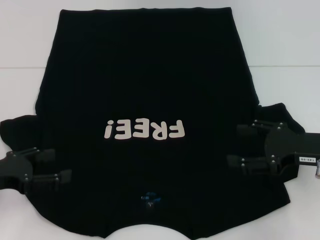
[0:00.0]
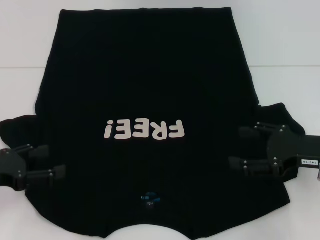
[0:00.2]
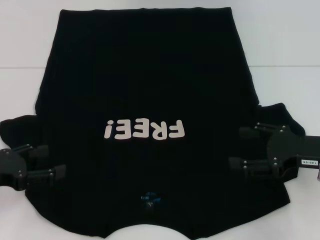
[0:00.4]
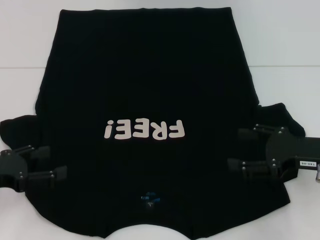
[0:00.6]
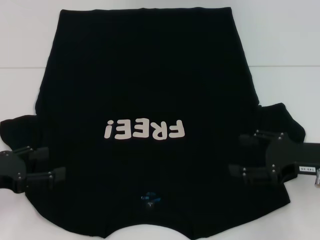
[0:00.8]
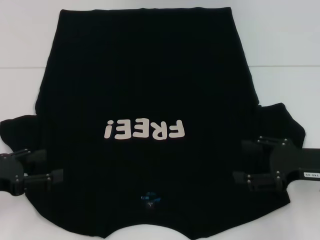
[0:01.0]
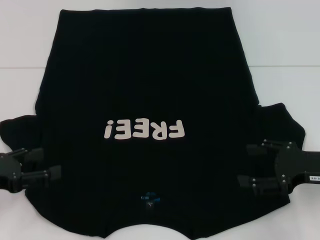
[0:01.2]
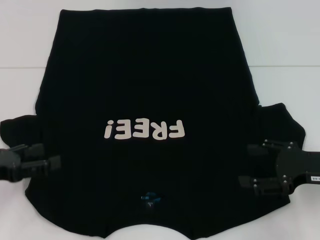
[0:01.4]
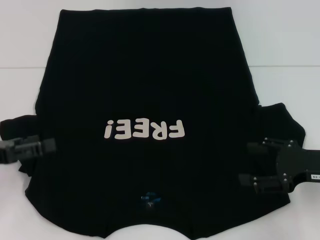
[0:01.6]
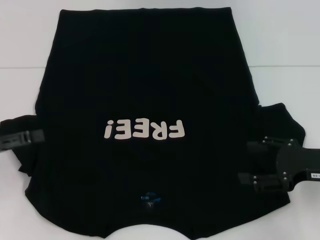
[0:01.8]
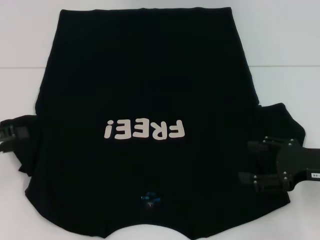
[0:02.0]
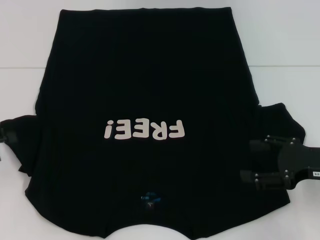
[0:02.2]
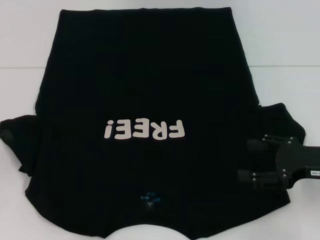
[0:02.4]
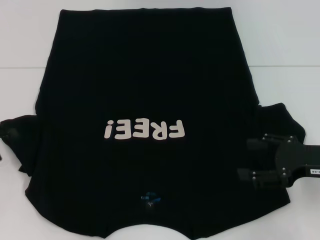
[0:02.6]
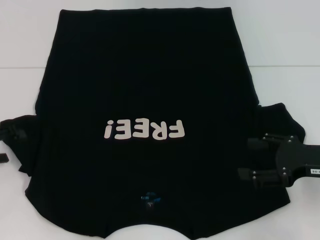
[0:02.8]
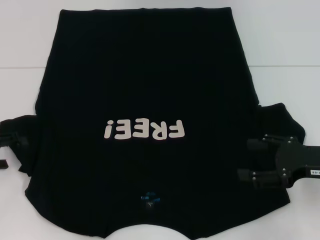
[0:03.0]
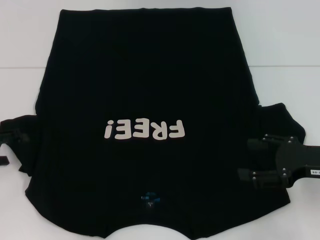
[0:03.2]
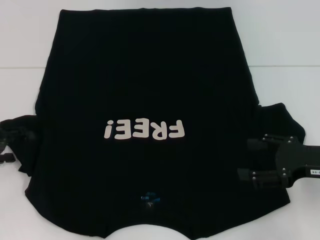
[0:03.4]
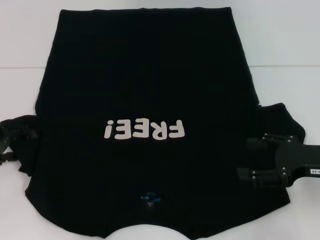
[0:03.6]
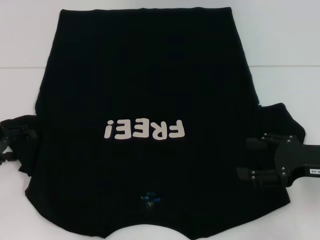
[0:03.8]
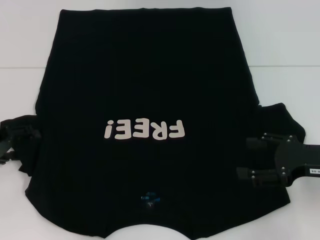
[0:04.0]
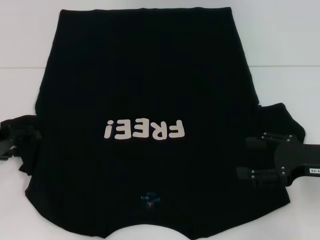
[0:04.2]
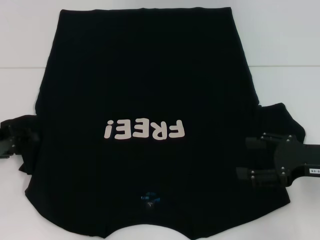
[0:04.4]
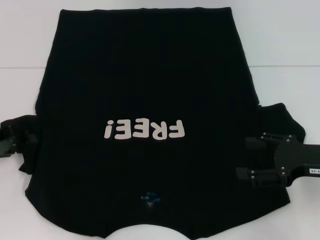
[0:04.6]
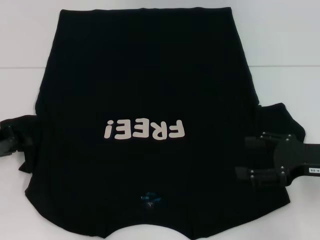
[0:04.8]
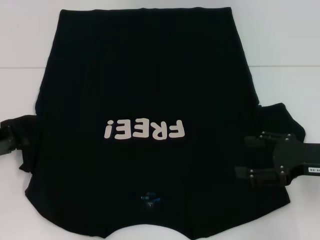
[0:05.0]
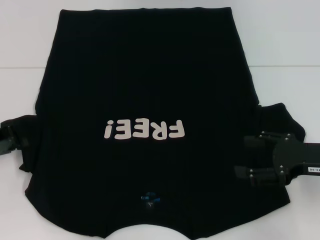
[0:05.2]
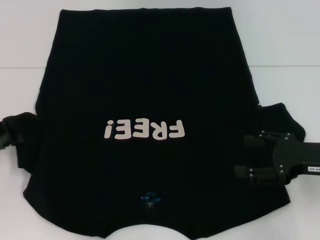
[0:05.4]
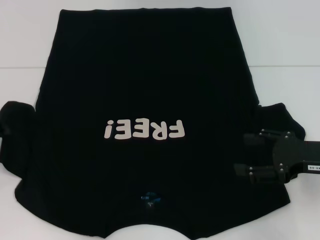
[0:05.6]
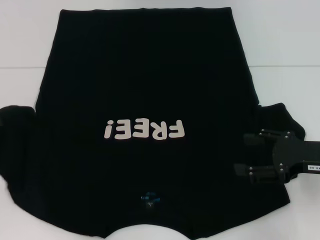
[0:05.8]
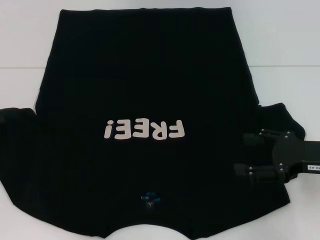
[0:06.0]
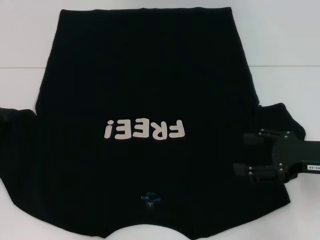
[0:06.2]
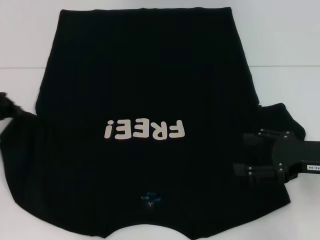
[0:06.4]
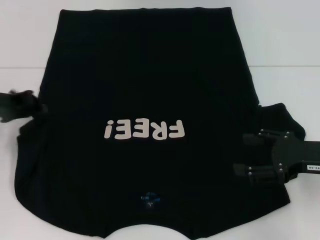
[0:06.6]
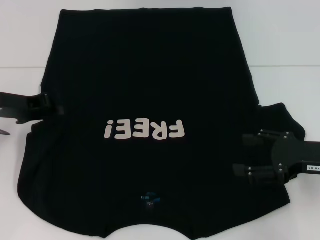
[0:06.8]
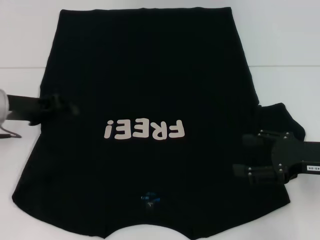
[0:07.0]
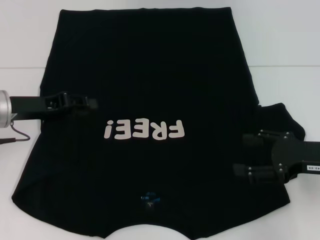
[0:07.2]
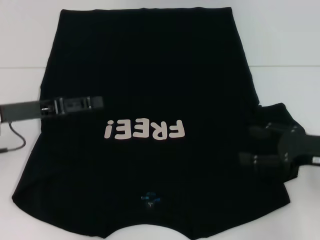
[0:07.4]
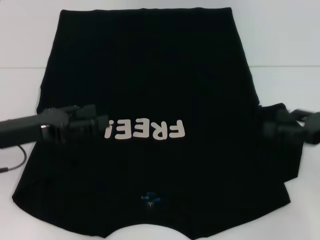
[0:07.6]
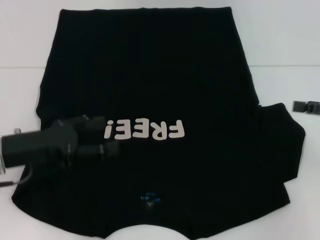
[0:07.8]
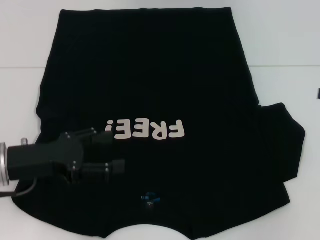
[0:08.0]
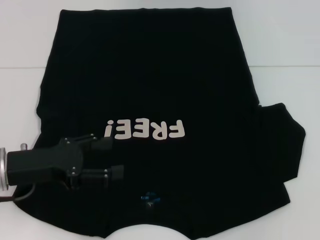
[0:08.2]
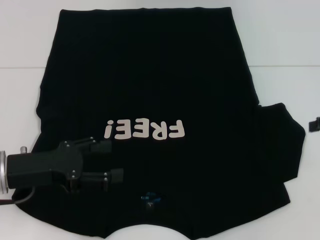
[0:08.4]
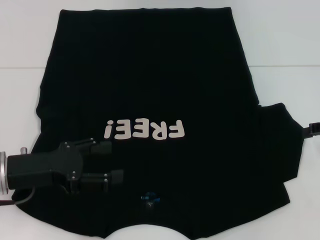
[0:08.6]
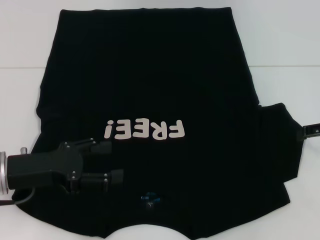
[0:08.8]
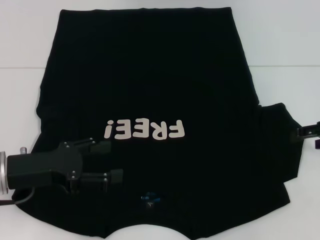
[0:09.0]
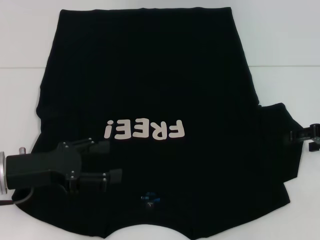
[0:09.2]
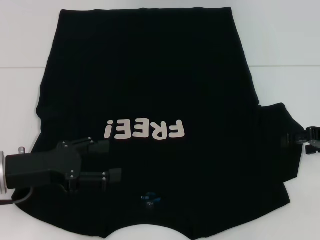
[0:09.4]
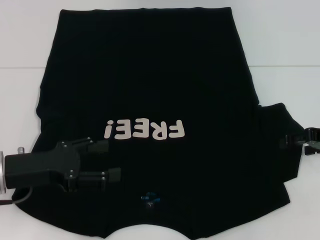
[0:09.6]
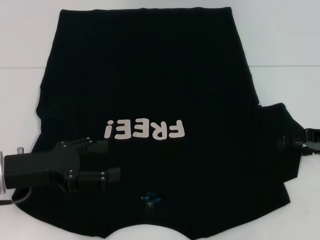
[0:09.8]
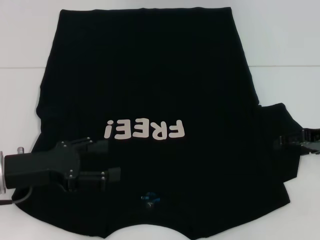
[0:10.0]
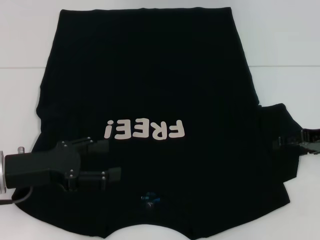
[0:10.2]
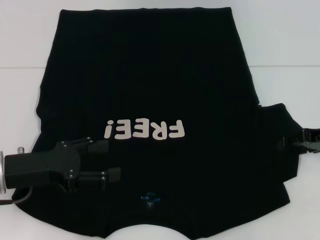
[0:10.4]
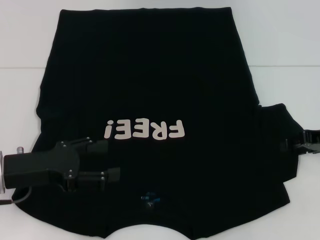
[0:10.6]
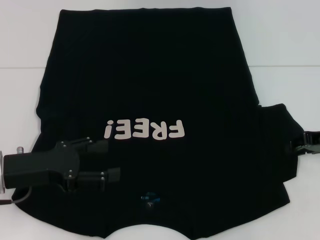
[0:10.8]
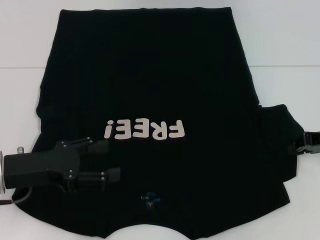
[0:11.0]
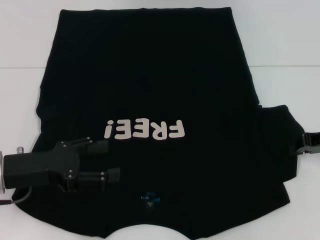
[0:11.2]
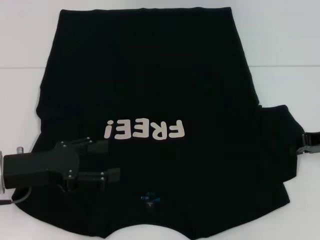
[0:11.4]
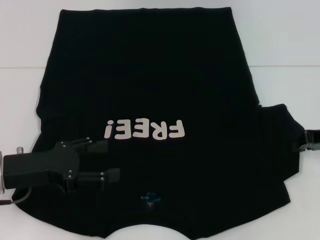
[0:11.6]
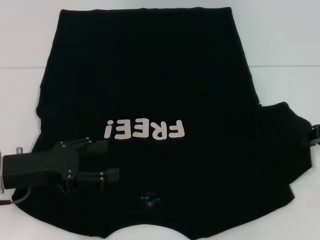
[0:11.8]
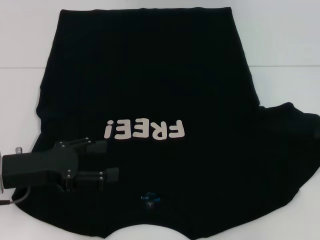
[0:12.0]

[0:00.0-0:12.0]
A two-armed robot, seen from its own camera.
Step, 0:00.0 to 0:07.0: Fold the bottom left sleeve with your left hand.
0:01.6 to 0:03.0: The left gripper changes place by about 5 cm.
0:03.0 to 0:04.4: The grippers move only a little.
0:04.4 to 0:06.0: The left gripper closes its fingers.
0:06.0 to 0:07.6: The left gripper heads to the right, covering some 10 cm, and opens its fingers.
0:07.6 to 0:09.0: The right gripper heads forward, covering roughly 5 cm.
0:09.0 to 0:10.4: The grippers make only small movements.
0:10.4 to 0:12.0: The right gripper closes.

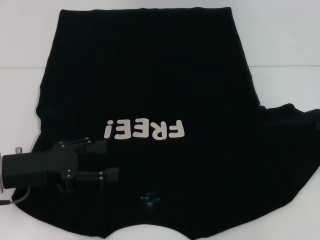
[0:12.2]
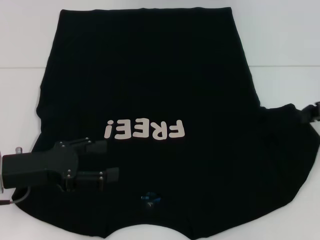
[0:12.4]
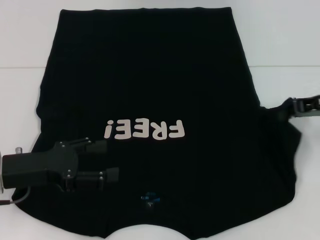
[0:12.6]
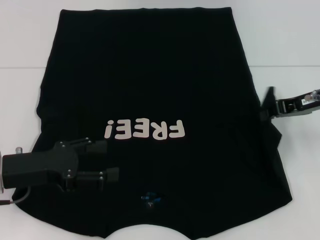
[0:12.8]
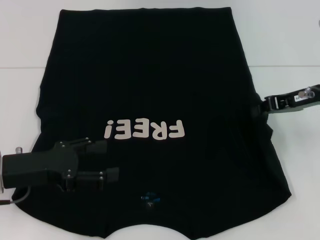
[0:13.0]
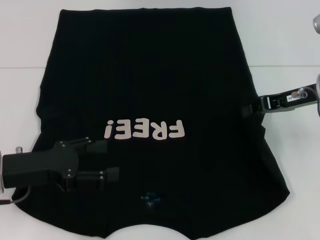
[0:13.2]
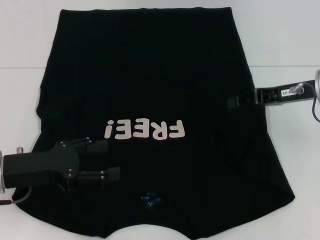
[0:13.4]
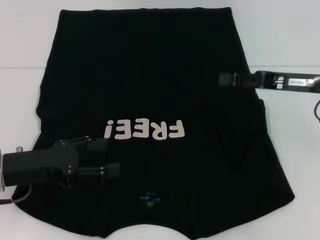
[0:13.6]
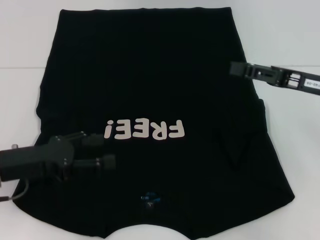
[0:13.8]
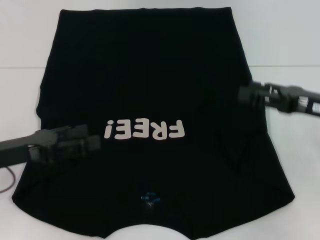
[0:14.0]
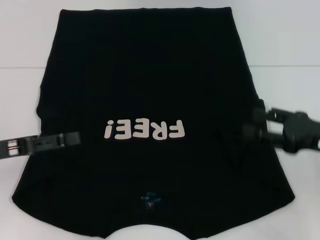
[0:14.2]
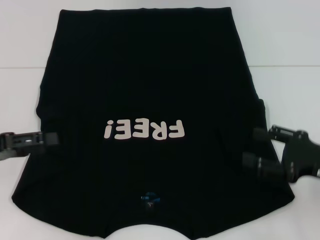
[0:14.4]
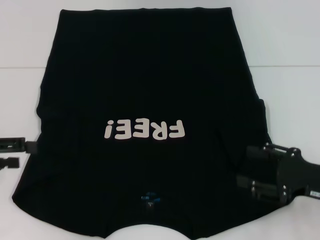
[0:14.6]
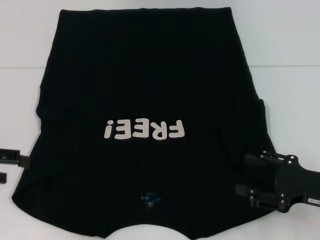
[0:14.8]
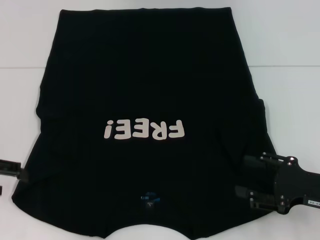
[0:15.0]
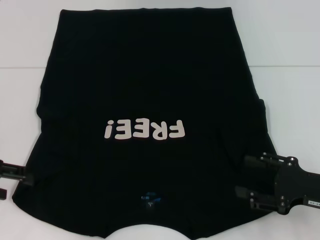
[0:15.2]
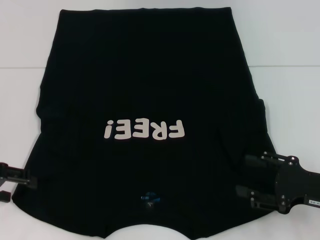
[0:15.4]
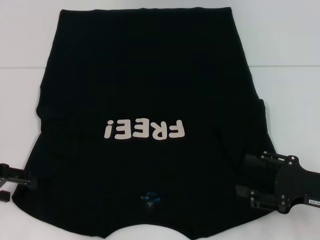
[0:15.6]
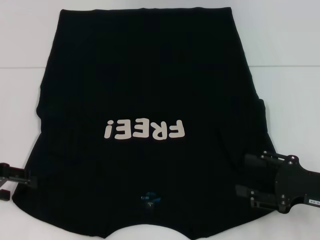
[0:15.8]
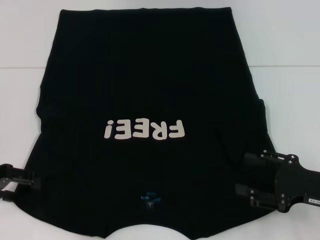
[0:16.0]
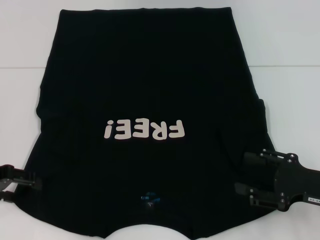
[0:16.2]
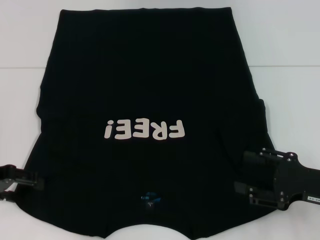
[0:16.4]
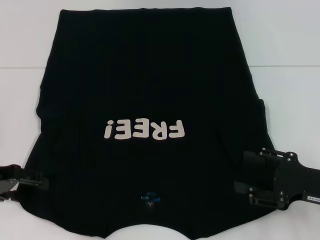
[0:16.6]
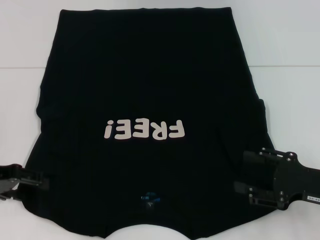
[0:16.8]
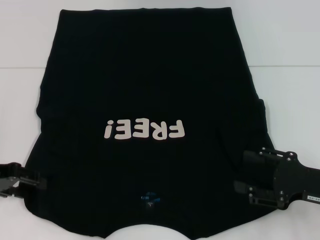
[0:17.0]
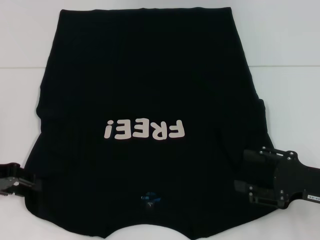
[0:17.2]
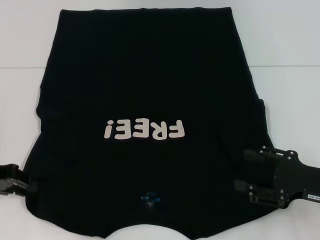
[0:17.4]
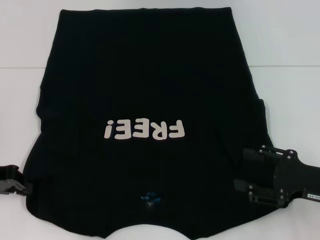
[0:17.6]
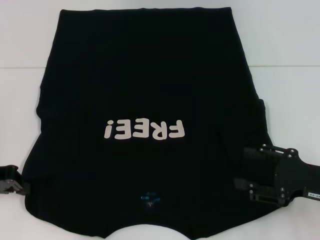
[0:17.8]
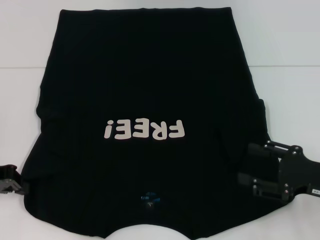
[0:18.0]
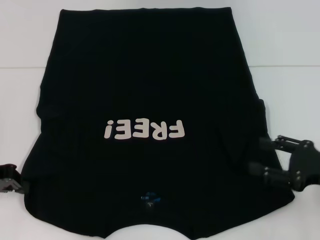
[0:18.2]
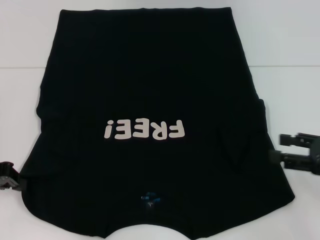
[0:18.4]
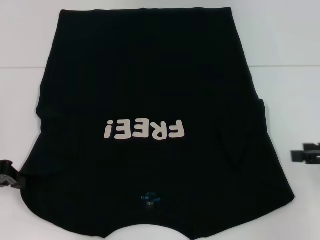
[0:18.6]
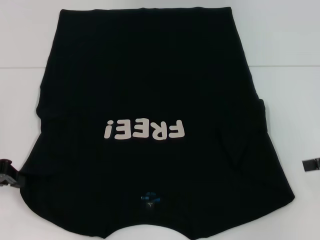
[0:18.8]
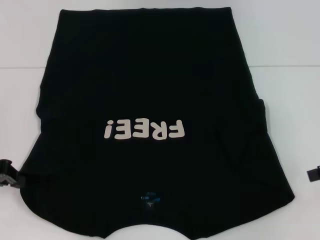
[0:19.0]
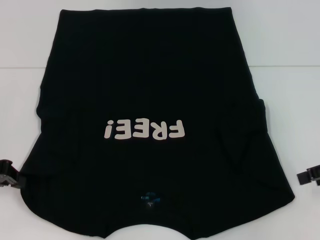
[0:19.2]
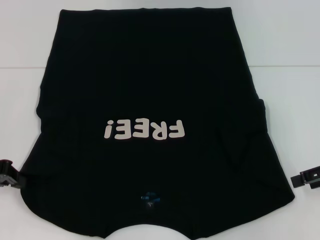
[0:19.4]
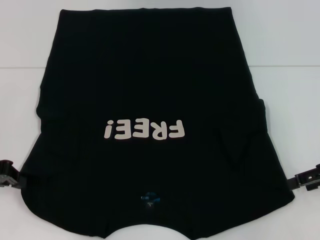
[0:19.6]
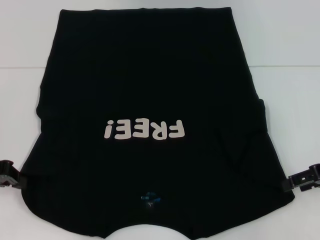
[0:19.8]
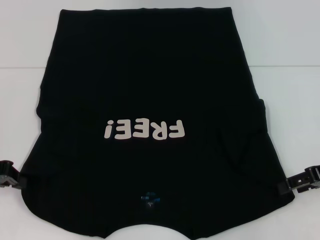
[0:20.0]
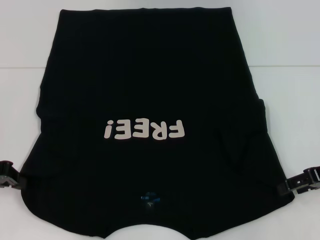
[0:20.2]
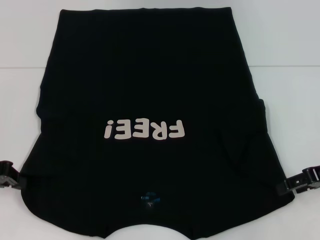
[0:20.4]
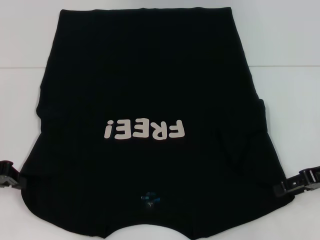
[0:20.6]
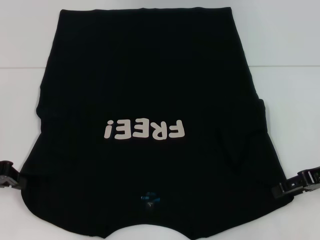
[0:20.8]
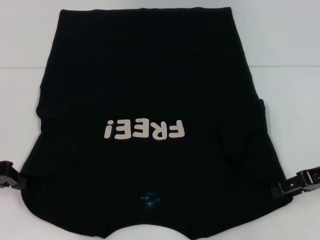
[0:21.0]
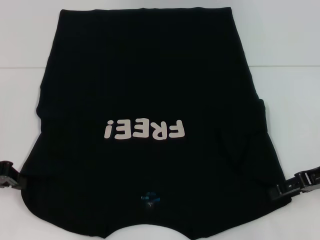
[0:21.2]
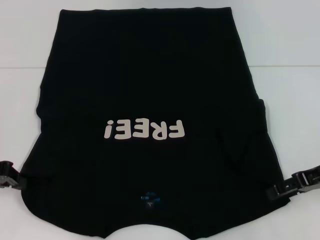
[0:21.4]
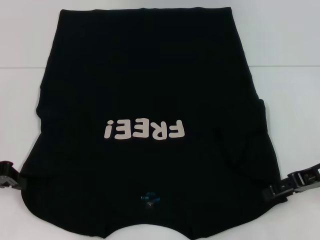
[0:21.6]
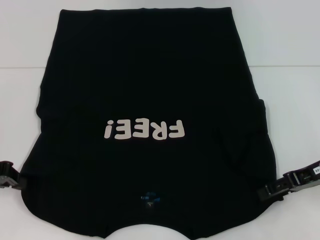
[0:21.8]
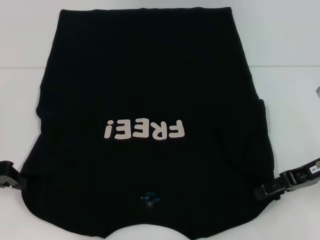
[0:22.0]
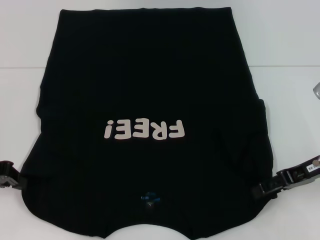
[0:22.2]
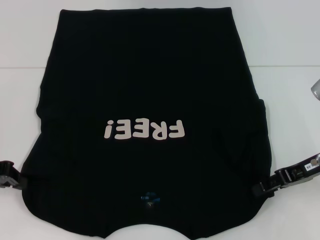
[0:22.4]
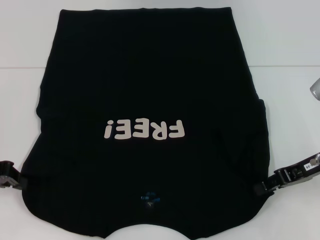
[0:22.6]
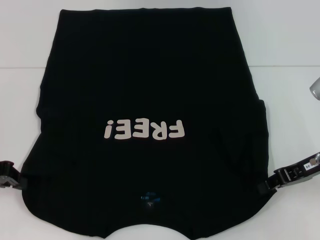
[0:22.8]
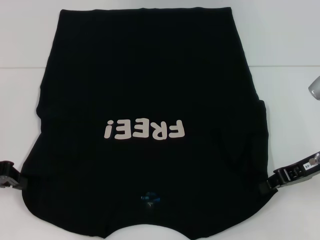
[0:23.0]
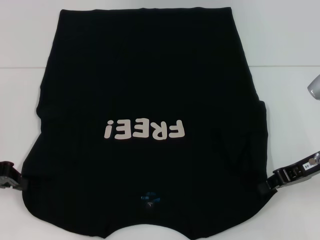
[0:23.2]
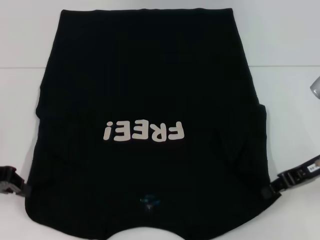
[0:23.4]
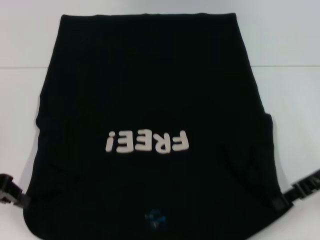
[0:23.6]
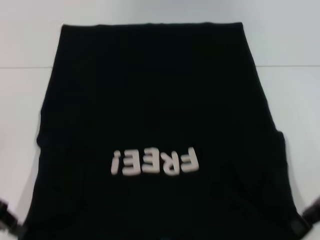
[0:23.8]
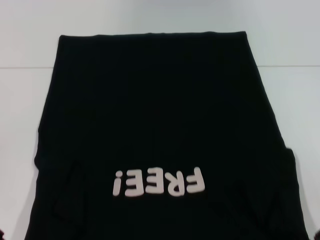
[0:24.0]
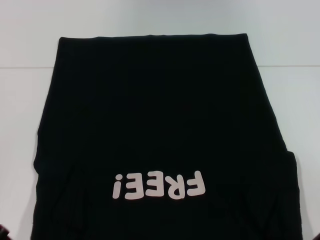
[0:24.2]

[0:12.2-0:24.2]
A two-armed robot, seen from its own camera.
Step, 0:13.6 to 0:18.0: Grab the bottom left corner with your left hand.
Step, 0:18.2 to 0:23.4: Grab the bottom right corner with your right hand.
0:12.2 to 0:13.8: The right gripper travels to the left by roughly 10 cm, and opens up.
0:13.8 to 0:15.2: The right gripper goes some 15 cm backward and downward, and opens, while the left gripper is displaced to the left by roughly 10 cm.
0:15.2 to 0:16.6: There are only small adjustments of the grippers.
0:16.6 to 0:18.2: The left gripper closes.
0:18.2 to 0:19.8: The right gripper travels forward by approximately 5 cm.
0:19.8 to 0:22.6: The grippers make only small movements.
0:22.6 to 0:24.2: The right gripper travels backward by approximately 5 cm, and closes.
